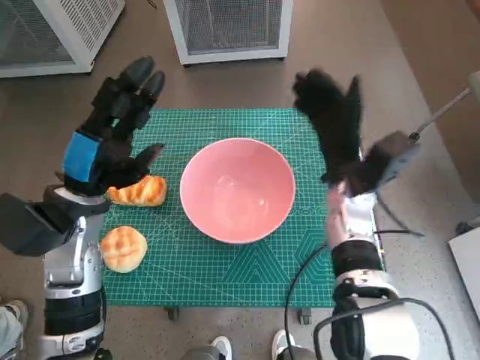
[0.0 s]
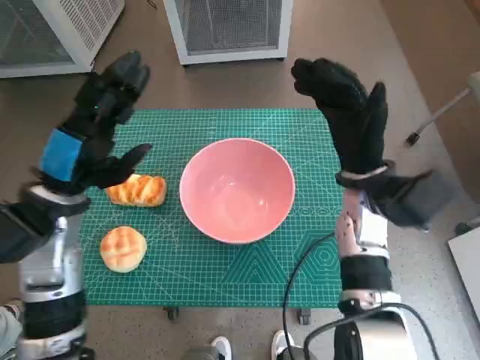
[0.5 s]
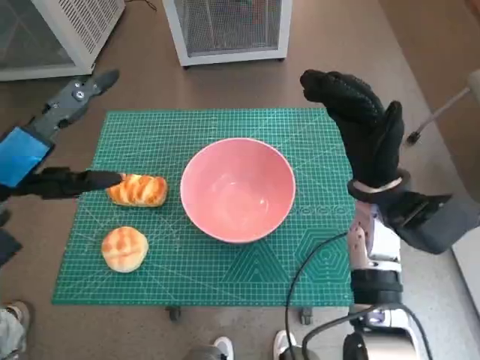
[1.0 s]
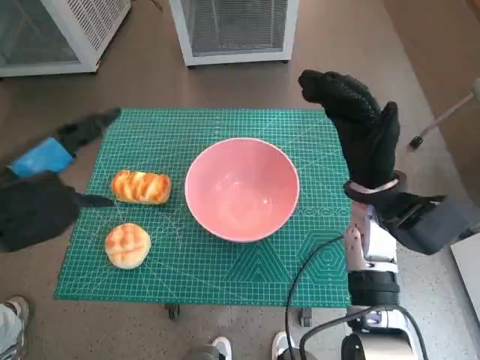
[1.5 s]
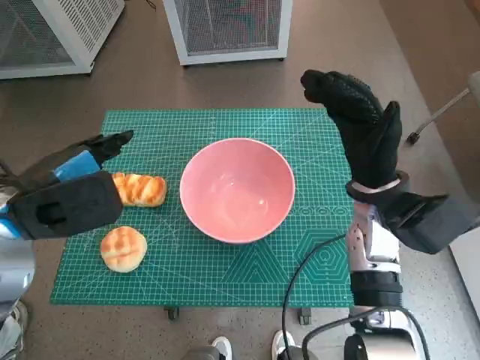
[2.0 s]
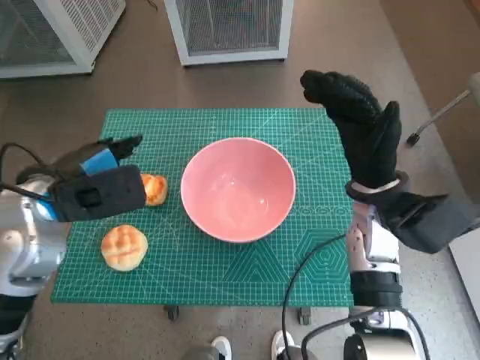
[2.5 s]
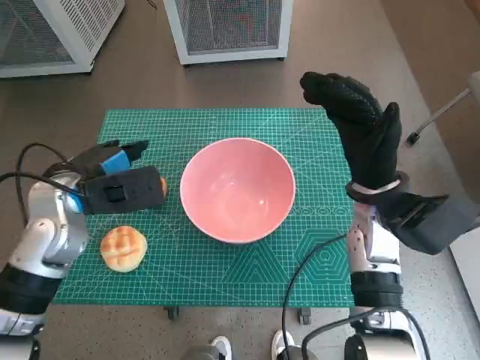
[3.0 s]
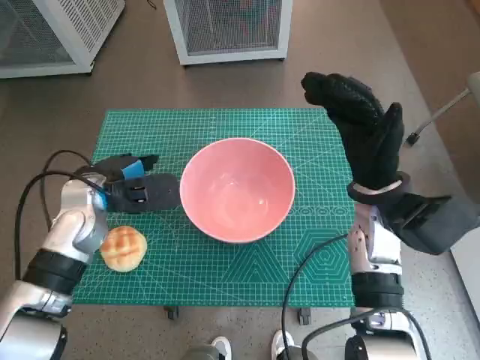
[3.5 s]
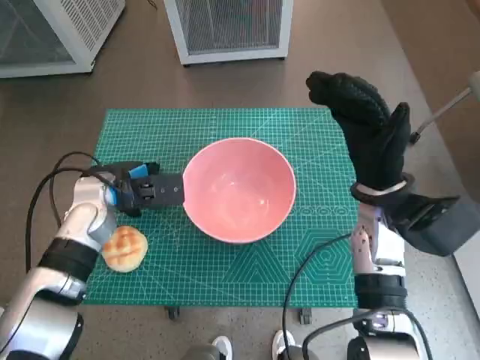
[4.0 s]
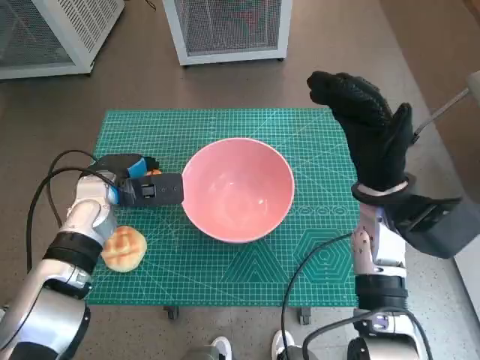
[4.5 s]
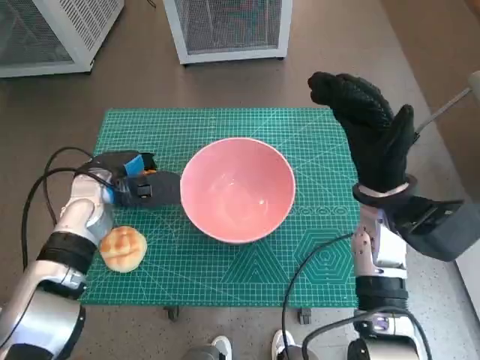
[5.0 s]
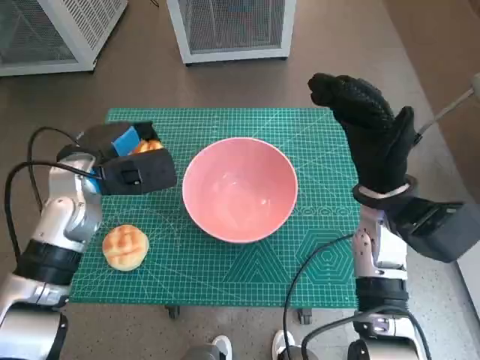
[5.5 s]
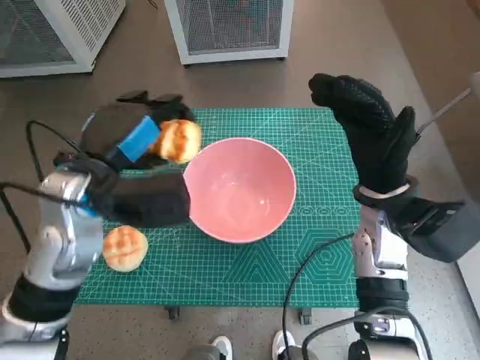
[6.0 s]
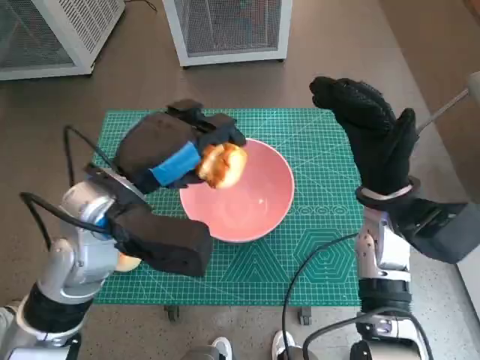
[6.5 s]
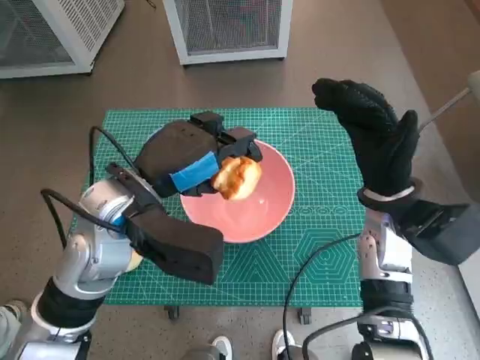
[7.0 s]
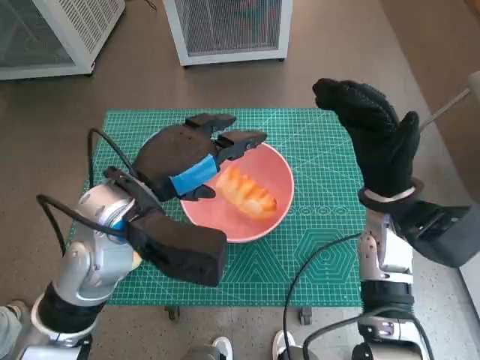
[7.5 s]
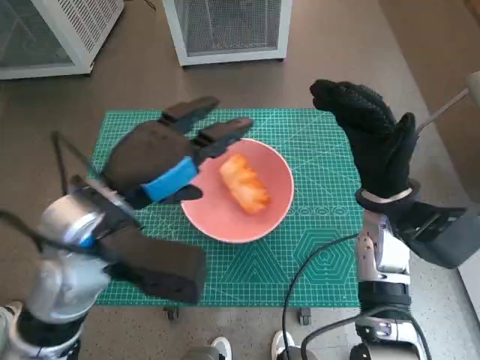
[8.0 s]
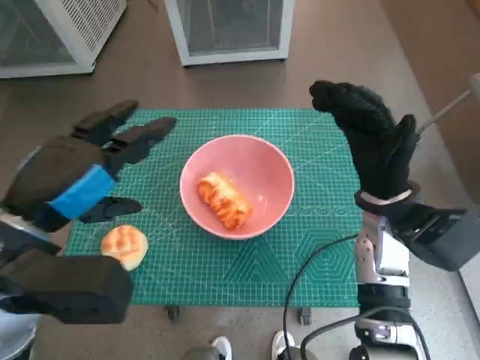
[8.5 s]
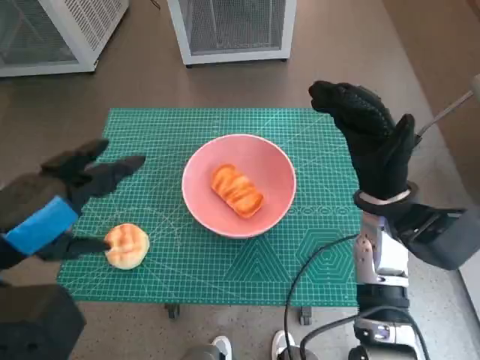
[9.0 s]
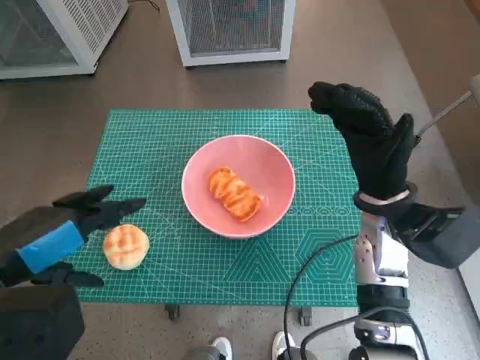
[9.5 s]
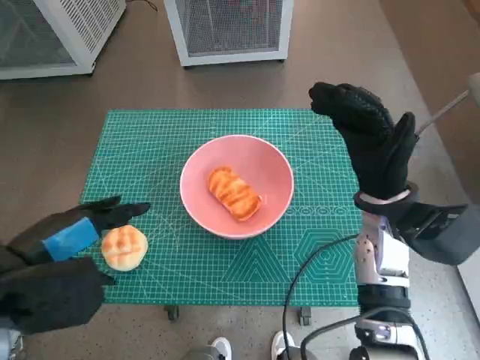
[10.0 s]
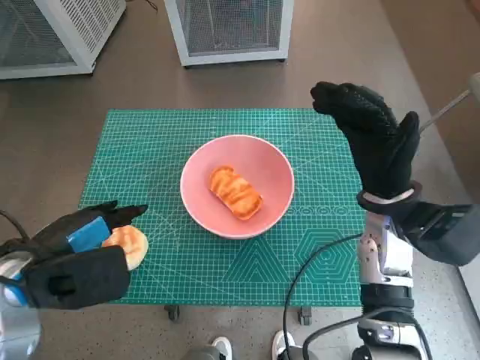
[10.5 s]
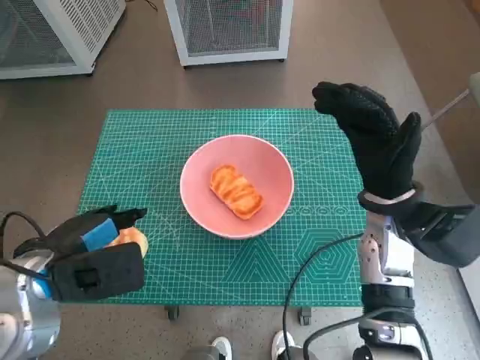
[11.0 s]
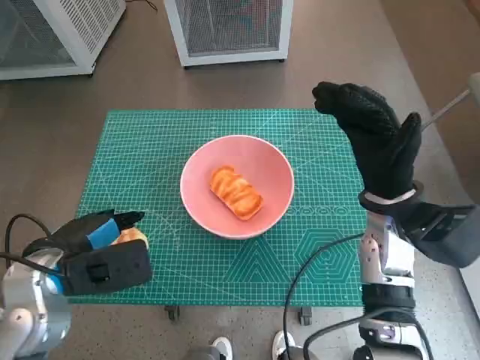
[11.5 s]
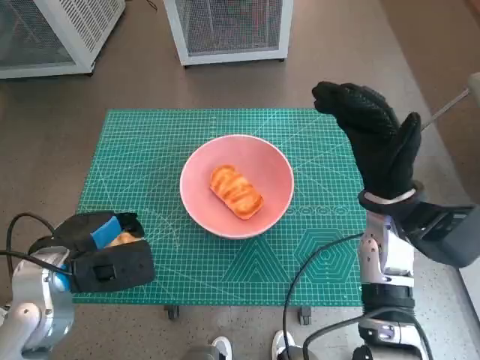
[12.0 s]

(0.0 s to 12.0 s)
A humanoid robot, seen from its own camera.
Task of the whole recording: Push the bowl into the center of the table and put the bread into the bowl.
Step, 0.0 s - 4.0 s: Grasp the long bread with left hand.
Step, 4.5 s - 7.0 s: Place the long bread in pink bowl with left hand.
0.0 s - 2.0 s: The left hand goes roughly 5 cm upward; the right hand ends up about 5 cm from where it was.
2.0 s - 4.0 s: The left hand moves downward and forward, some 15 cm.
4.0 s - 6.0 s: The left hand heads upward and backward, covering approximately 10 cm.
6.0 s - 8.0 s: The left hand changes place by about 5 cm.
8.0 s - 10.0 s: The left hand heads to the left and backward, covering roughly 10 cm.
10.0 s - 12.0 s: The left hand heads downward, covering some 10 cm.

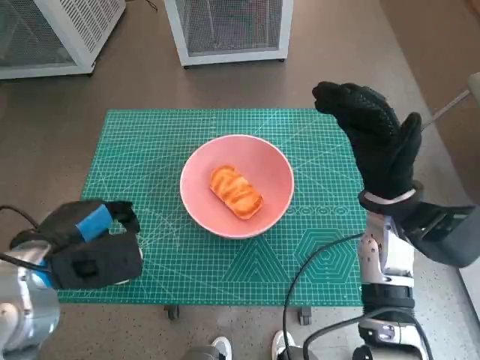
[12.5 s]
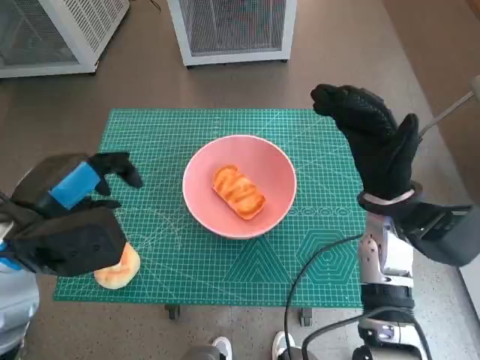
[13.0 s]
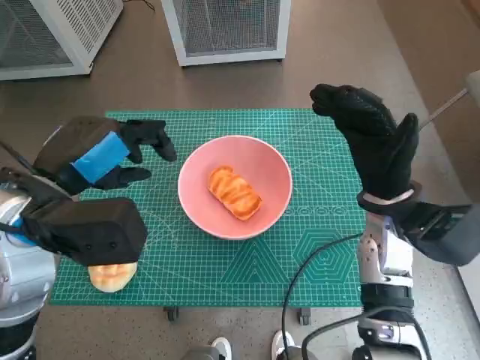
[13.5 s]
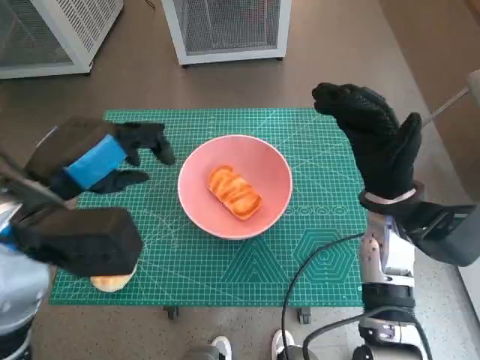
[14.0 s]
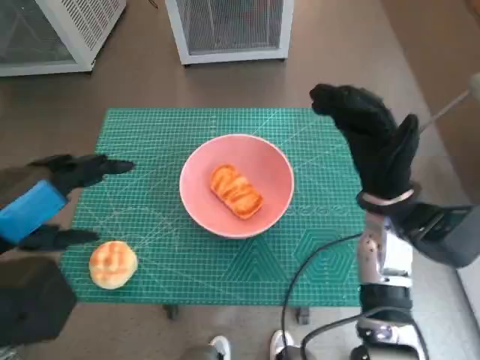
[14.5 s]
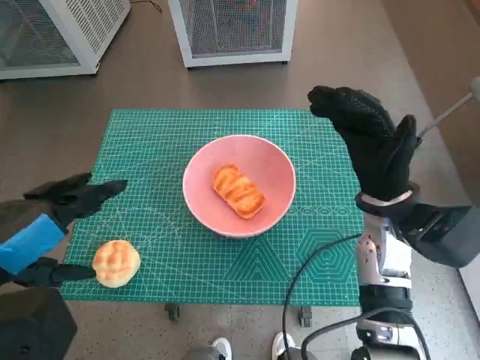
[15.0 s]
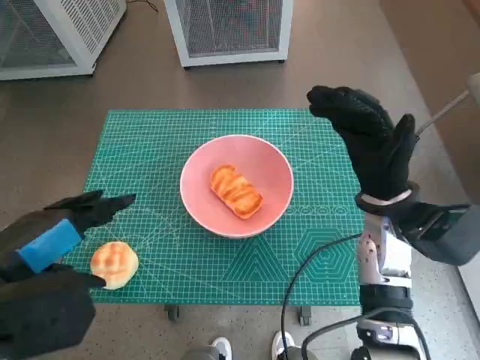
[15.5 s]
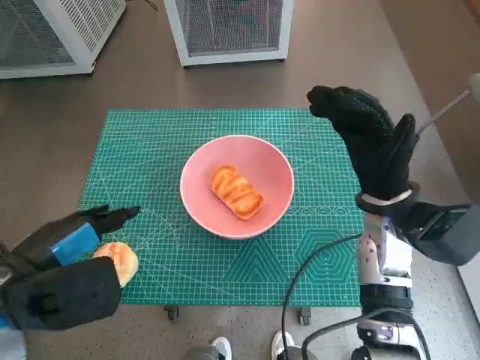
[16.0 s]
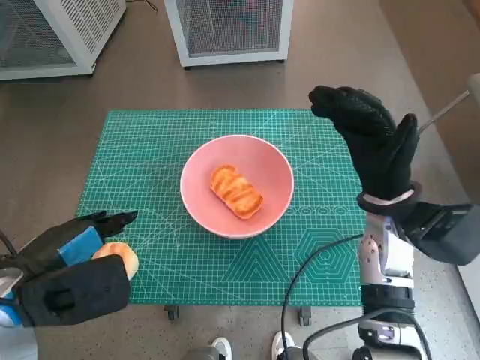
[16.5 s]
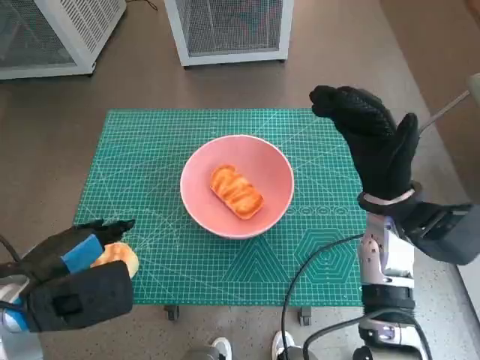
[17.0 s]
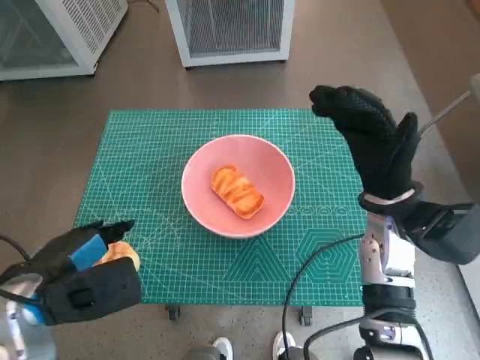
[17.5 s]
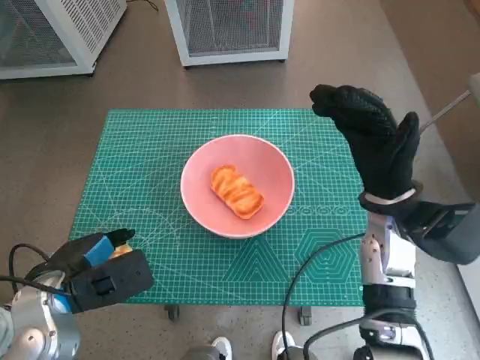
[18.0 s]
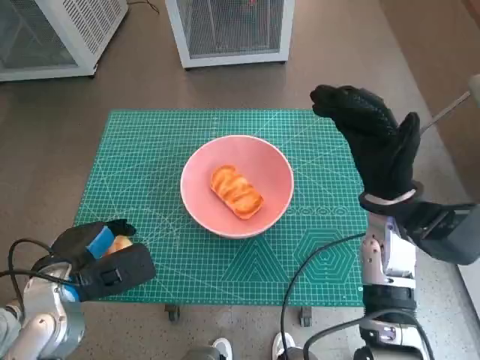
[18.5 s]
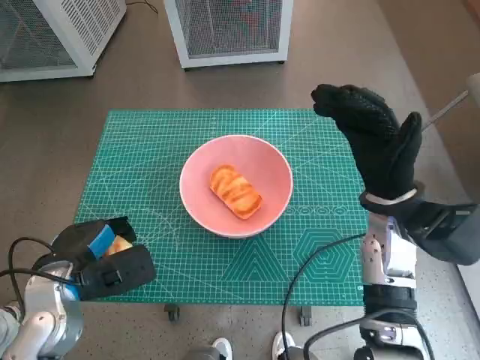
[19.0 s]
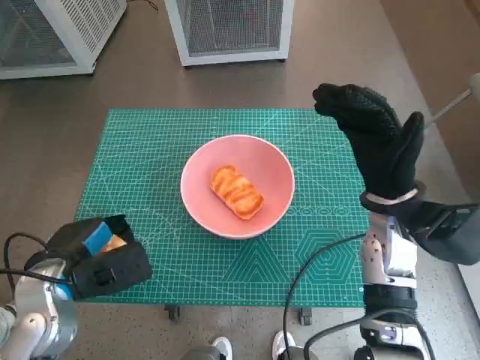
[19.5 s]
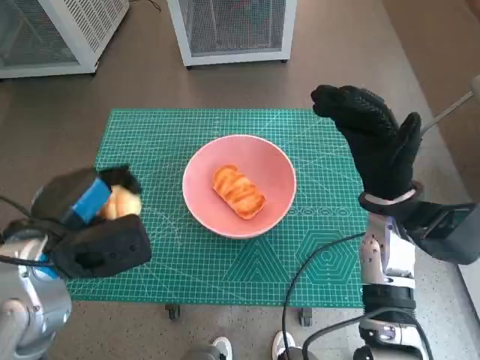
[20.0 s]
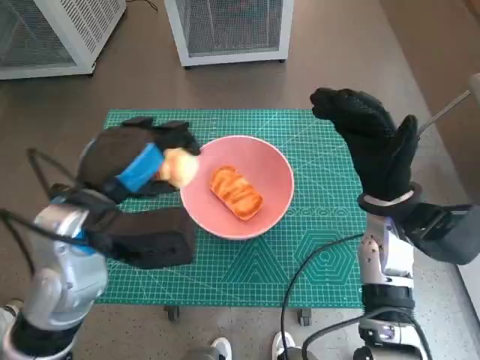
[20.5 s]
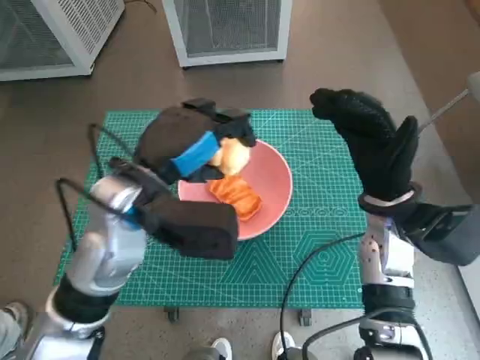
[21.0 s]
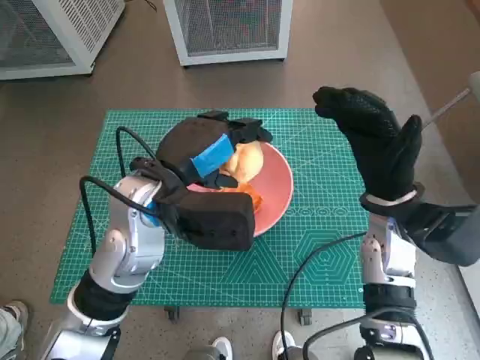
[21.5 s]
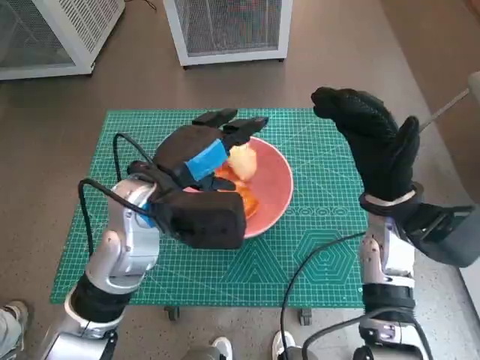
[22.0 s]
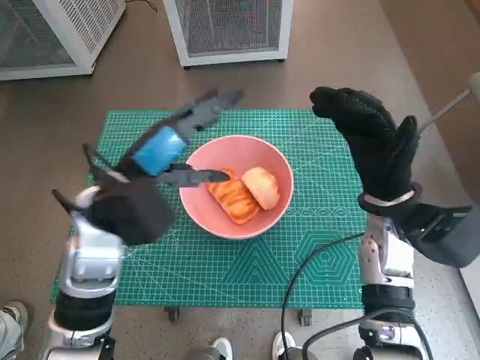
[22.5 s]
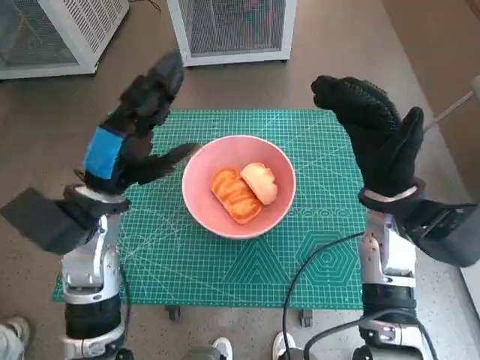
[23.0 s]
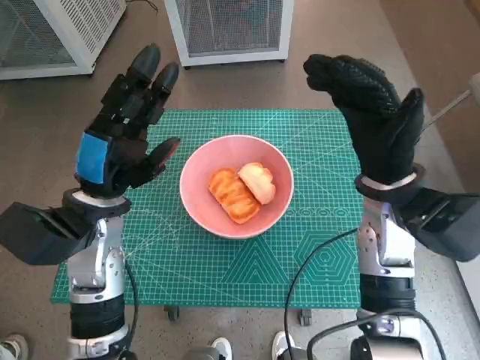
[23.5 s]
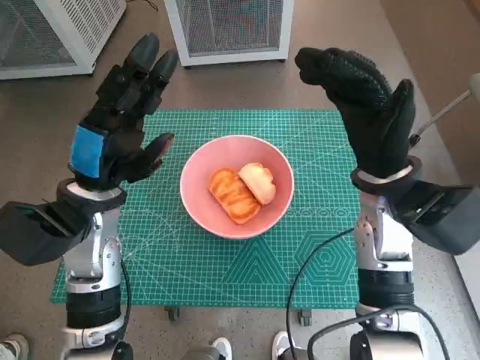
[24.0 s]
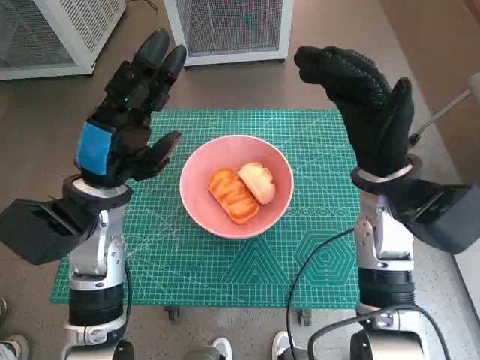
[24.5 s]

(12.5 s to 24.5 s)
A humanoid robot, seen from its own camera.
Task of the whole recording: Push the bowl into the center of the table and put the bread into the bowl.
Step, 12.5 s - 18.0 s: Grasp the round bread with left hand.
Step, 18.5 s - 21.5 s: Place the round bread in pink bowl with left hand.
12.5 s - 14.5 s: The left hand heads upward, covering roughly 10 cm.
14.5 s - 16.5 s: The left hand moves downward, roughly 10 cm.
16.5 s - 18.5 s: The left hand goes about 10 cm downward.
18.5 s - 20.5 s: The left hand is displaced upward and to the right by about 15 cm.
